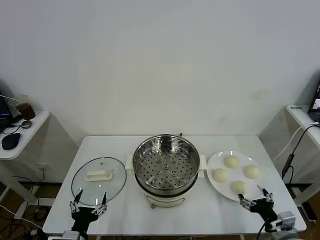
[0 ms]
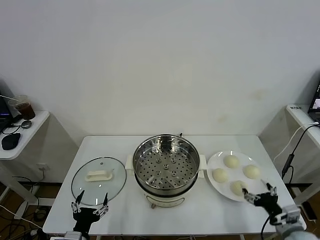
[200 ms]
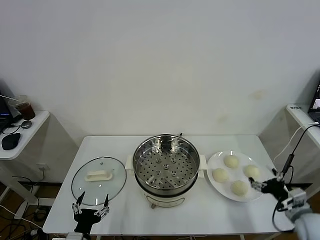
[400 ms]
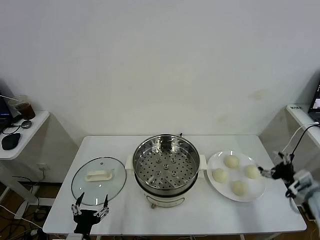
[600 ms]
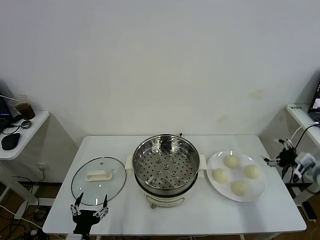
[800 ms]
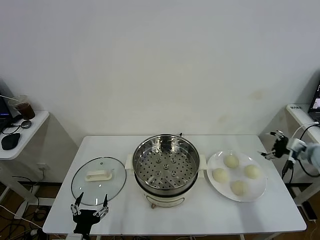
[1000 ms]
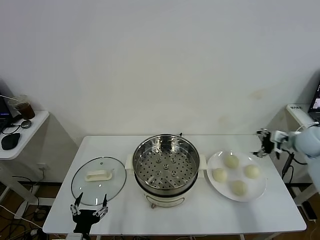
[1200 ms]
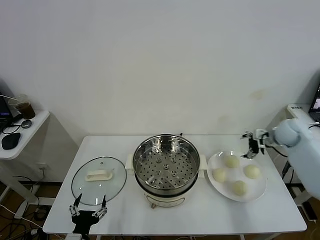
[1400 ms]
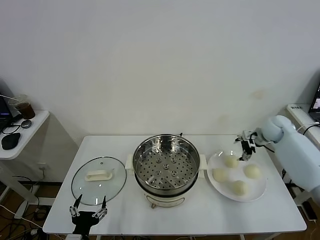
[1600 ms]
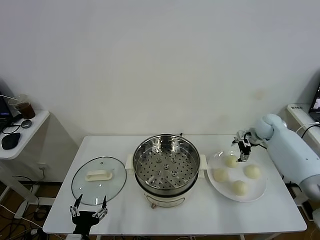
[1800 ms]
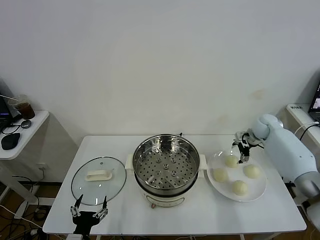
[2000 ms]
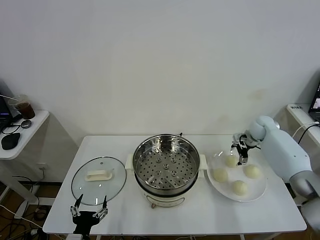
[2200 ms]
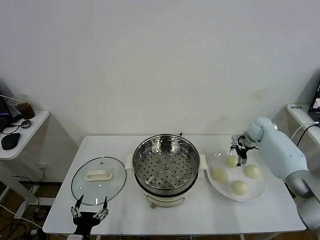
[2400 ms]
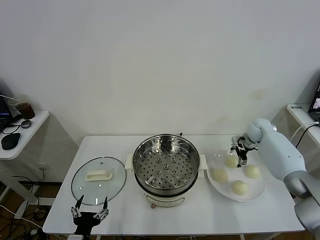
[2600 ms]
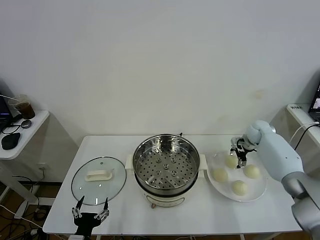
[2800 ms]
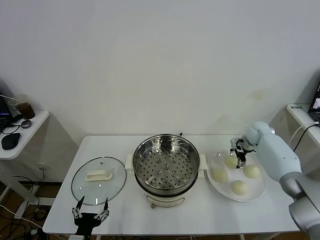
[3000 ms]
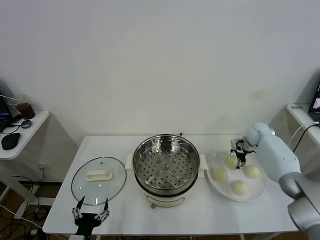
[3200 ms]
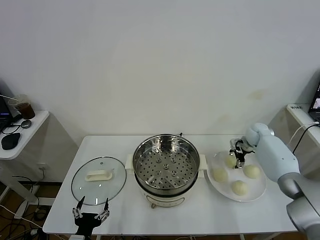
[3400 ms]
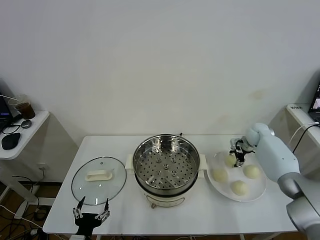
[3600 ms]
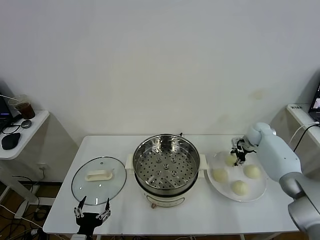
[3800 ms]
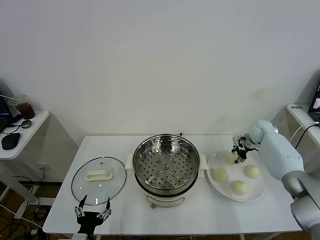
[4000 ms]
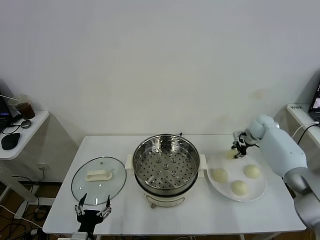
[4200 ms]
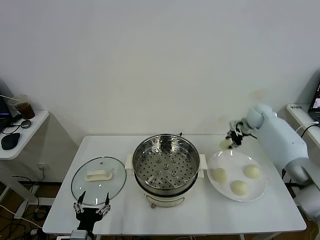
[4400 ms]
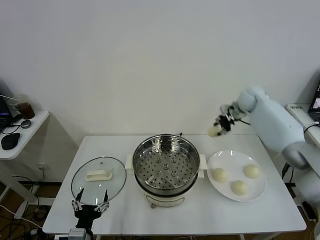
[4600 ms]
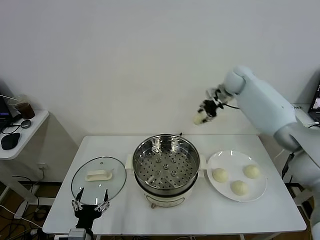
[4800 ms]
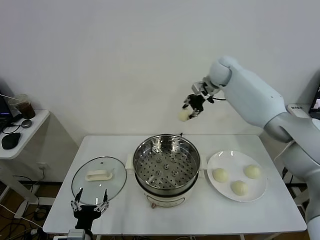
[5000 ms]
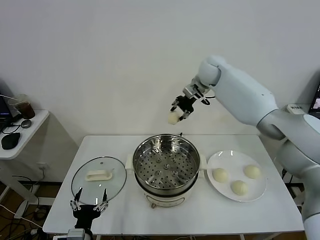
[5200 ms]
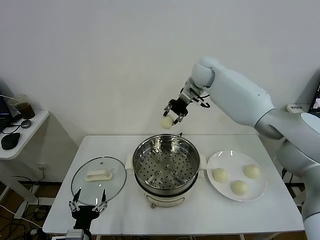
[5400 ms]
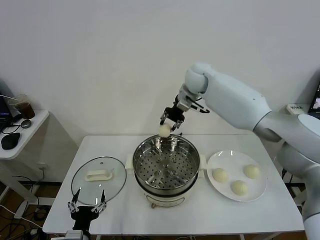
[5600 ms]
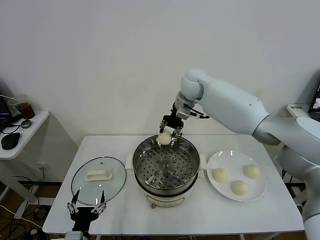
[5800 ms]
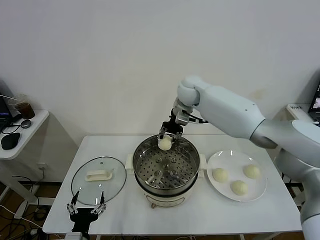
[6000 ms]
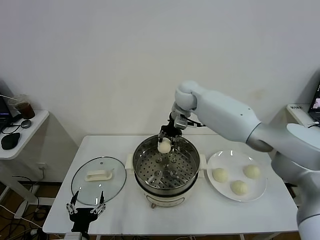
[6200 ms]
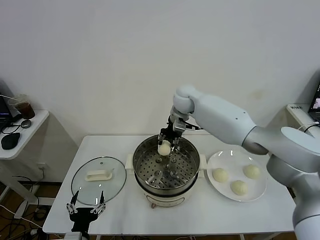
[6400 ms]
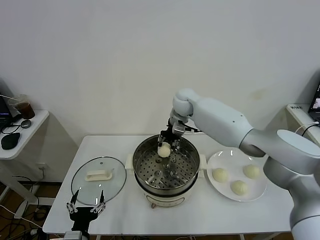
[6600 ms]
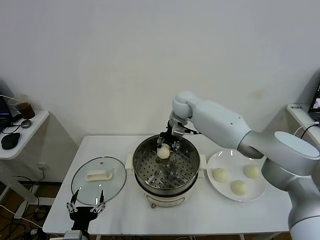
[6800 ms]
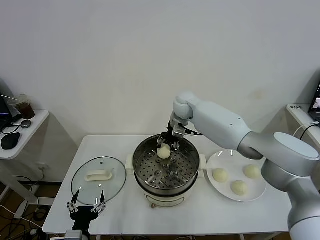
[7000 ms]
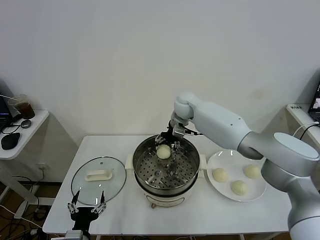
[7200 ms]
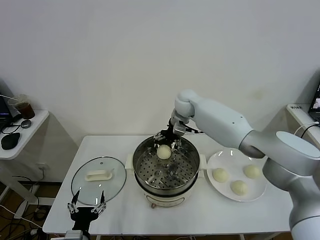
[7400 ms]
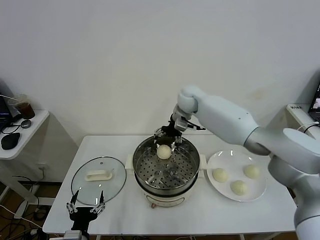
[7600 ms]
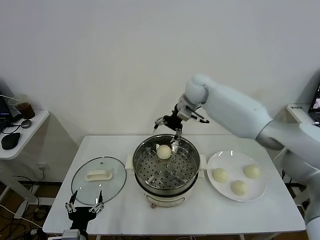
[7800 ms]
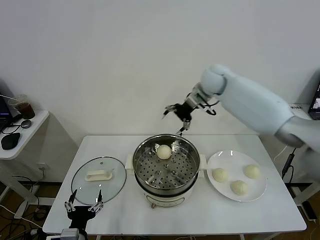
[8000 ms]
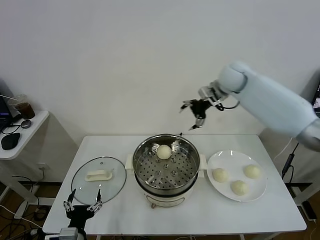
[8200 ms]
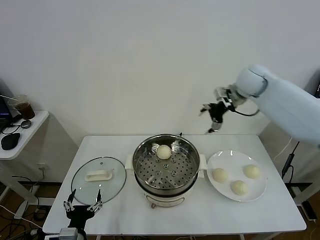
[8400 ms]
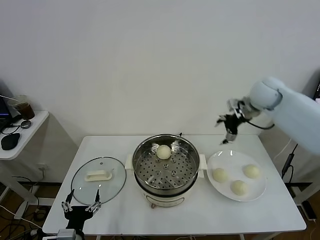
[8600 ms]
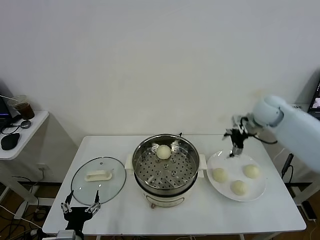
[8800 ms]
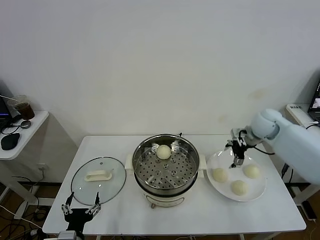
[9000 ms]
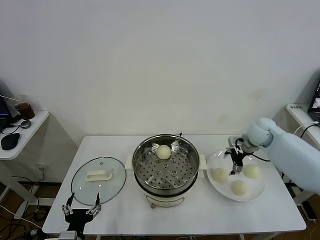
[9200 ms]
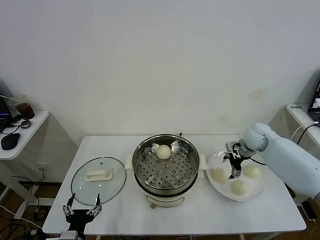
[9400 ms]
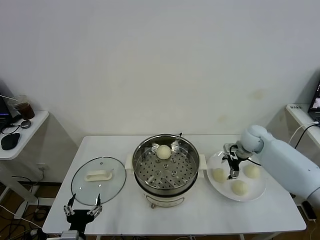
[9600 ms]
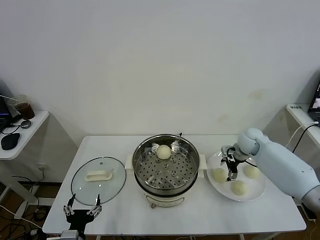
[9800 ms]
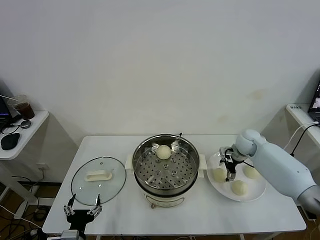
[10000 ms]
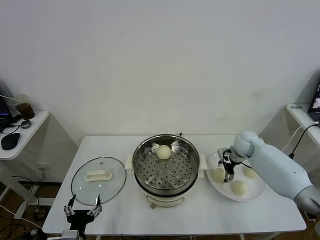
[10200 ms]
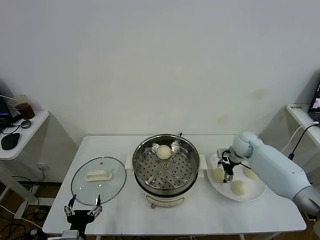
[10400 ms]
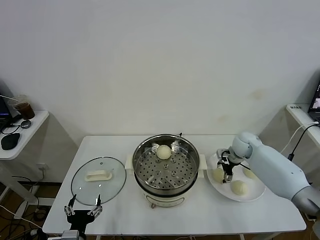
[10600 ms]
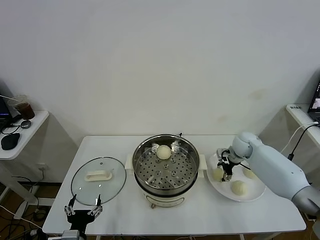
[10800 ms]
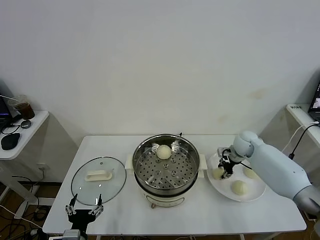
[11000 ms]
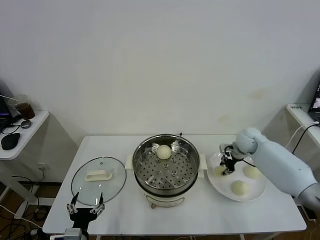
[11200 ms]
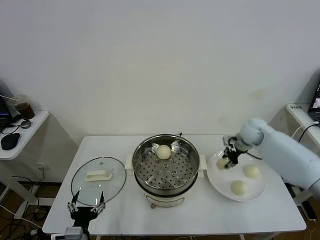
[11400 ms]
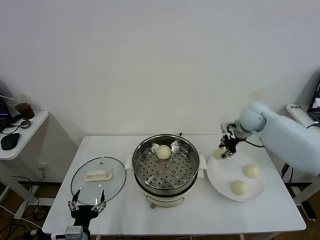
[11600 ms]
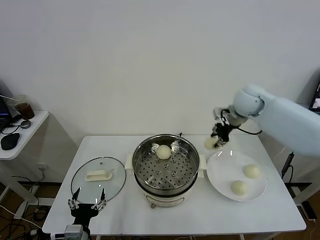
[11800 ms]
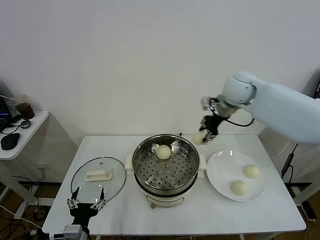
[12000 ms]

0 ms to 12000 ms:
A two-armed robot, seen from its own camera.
Task of the whole recording: take steamed baozi put them in steamer.
Step, 0 ms to 3600 ms: Grasp the baozi in the plate with right gripper.
Step, 4000 ms to 7200 ms: Place the baozi on the steamer with right gripper.
Step, 7400 ms to 11000 ms: Grasp the baozi in the plate with right gripper.
1600 ms to 3000 ms: The right gripper shifts some 5 cm downward.
3000 ms to 4400 ms: The right gripper moves upward and to the left, about 15 cm, and closes up.
4400 ms to 6000 ms: The right gripper moves to the left, approximately 25 cm.
6000 ms to 7600 ms: The right gripper opens.
7600 ms to 9000 ms: The right gripper moves to the right, roughly 25 cm.
9000 ms to 10400 ms: The right gripper moves downward, approximately 10 cm.
10400 ms to 12000 ms: The right gripper heads upward and to the left, covering roughly 30 cm, and closes.

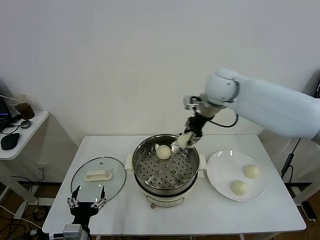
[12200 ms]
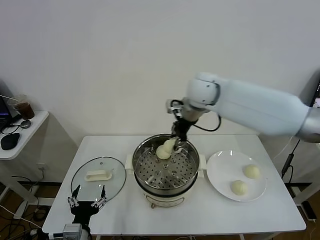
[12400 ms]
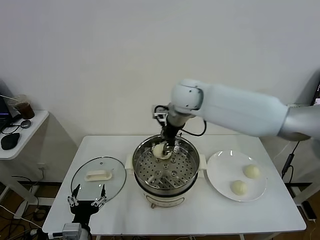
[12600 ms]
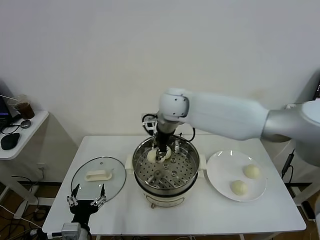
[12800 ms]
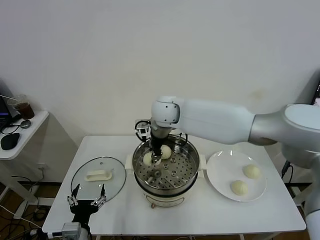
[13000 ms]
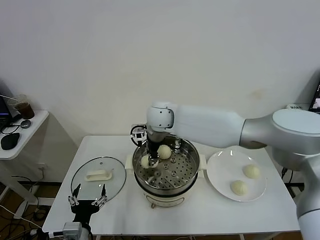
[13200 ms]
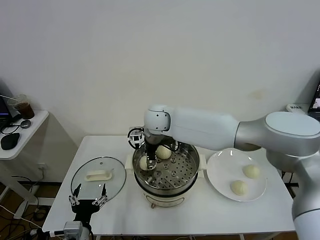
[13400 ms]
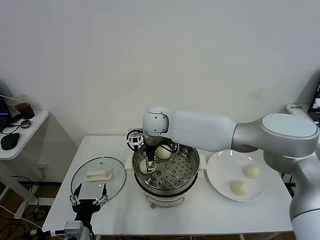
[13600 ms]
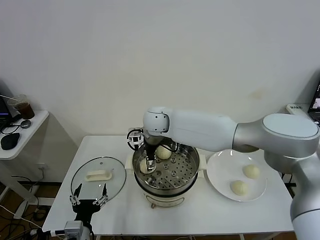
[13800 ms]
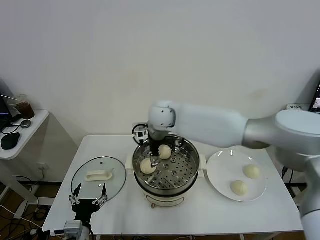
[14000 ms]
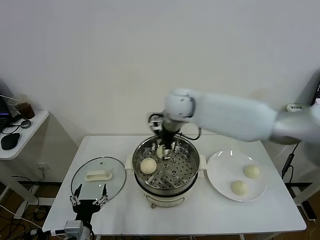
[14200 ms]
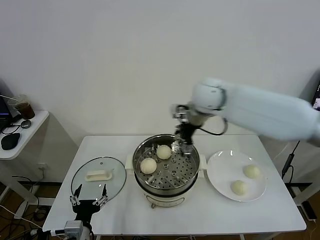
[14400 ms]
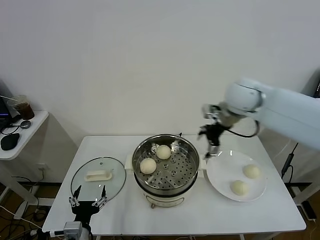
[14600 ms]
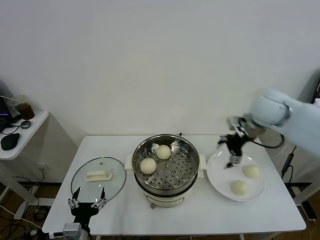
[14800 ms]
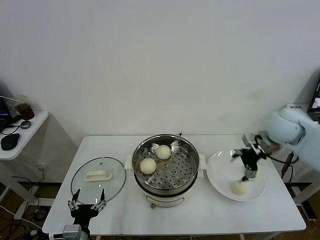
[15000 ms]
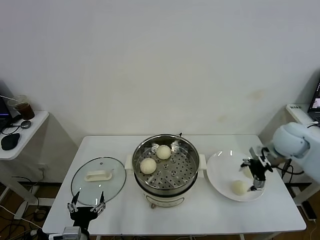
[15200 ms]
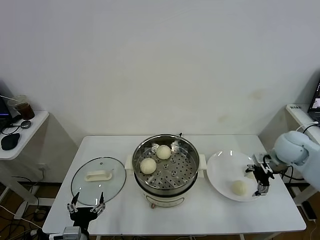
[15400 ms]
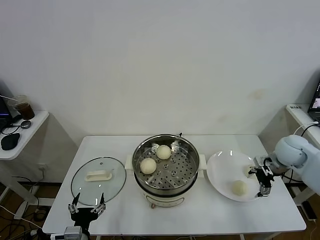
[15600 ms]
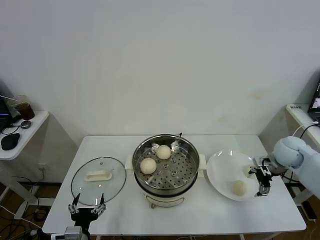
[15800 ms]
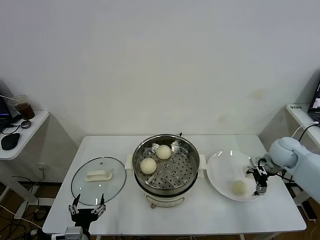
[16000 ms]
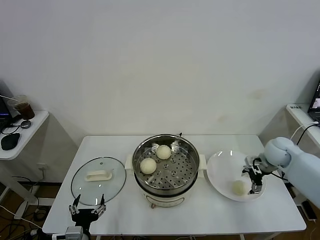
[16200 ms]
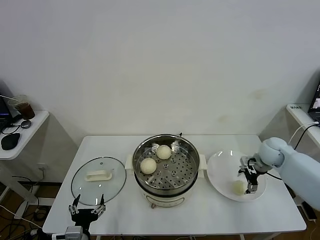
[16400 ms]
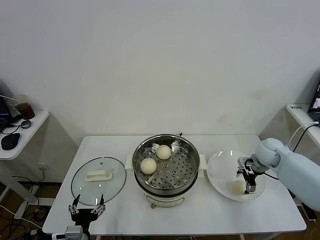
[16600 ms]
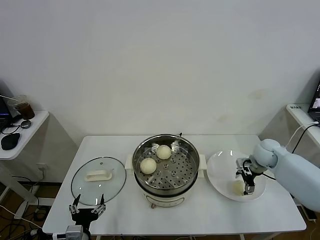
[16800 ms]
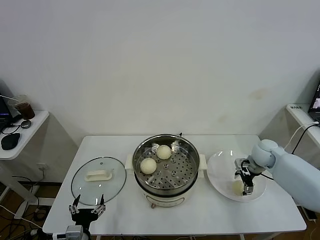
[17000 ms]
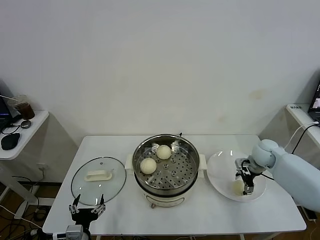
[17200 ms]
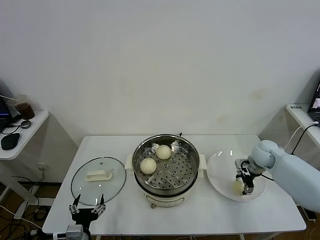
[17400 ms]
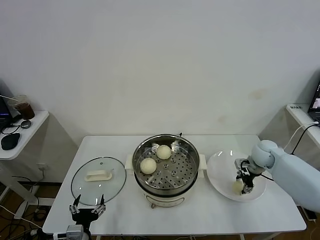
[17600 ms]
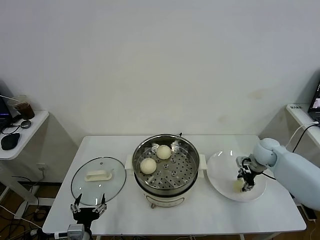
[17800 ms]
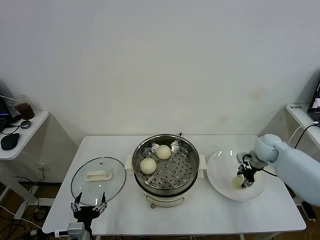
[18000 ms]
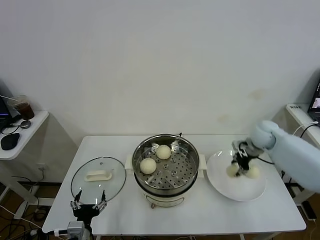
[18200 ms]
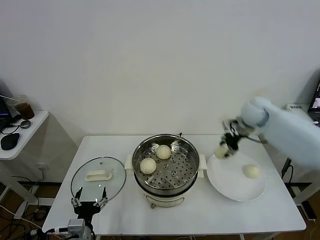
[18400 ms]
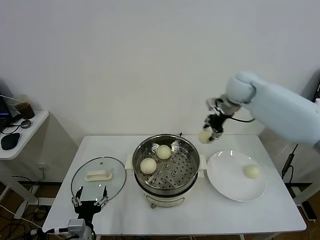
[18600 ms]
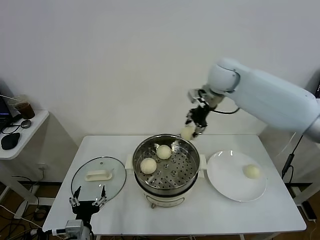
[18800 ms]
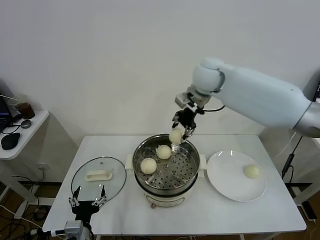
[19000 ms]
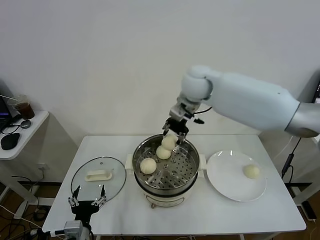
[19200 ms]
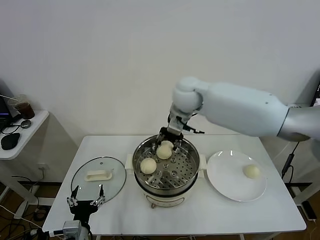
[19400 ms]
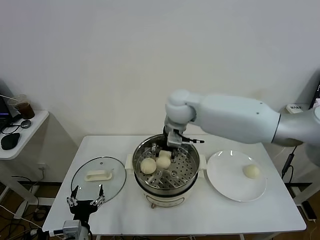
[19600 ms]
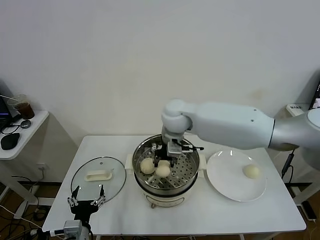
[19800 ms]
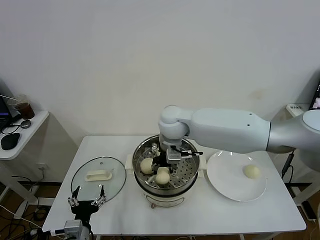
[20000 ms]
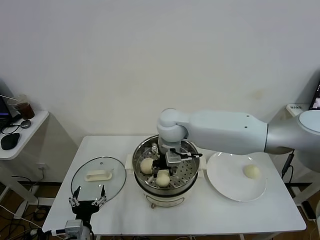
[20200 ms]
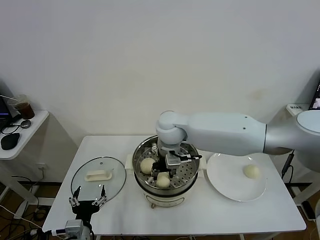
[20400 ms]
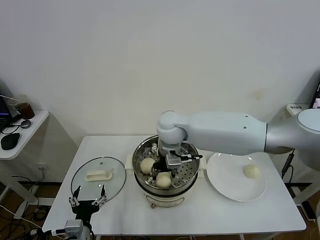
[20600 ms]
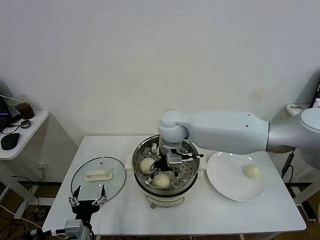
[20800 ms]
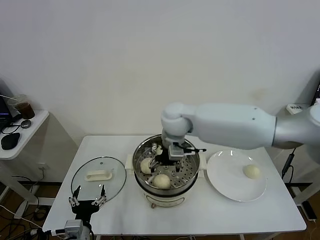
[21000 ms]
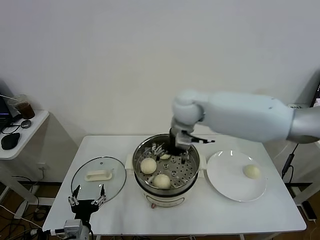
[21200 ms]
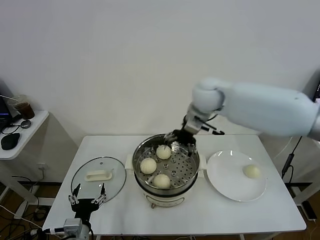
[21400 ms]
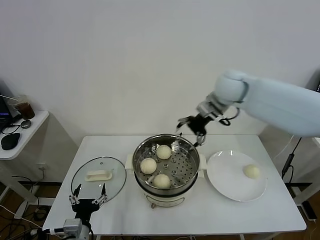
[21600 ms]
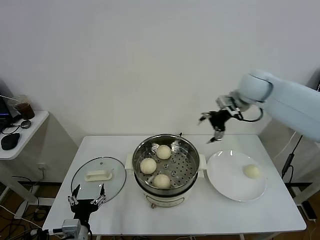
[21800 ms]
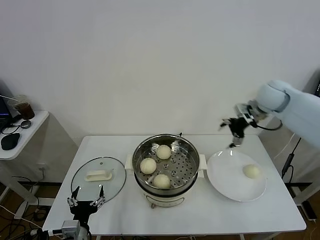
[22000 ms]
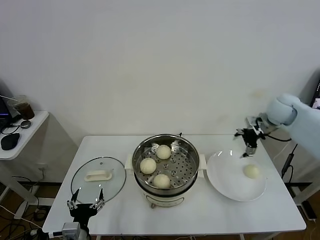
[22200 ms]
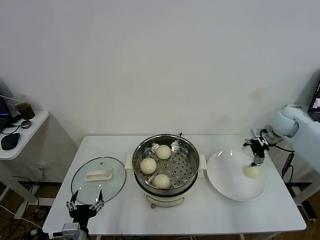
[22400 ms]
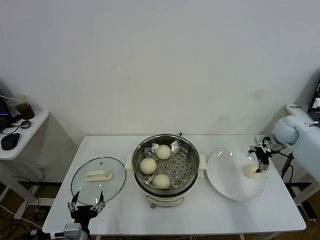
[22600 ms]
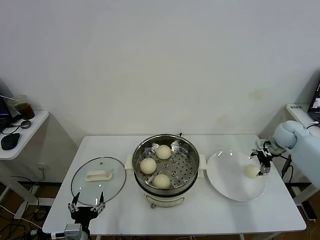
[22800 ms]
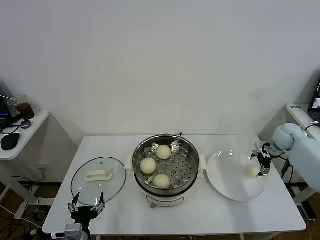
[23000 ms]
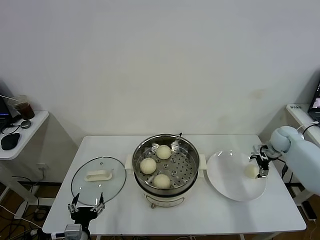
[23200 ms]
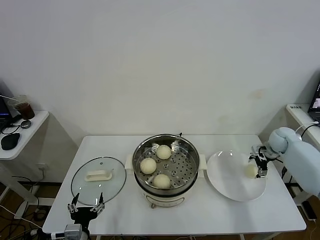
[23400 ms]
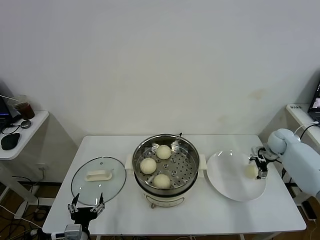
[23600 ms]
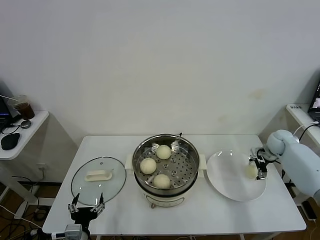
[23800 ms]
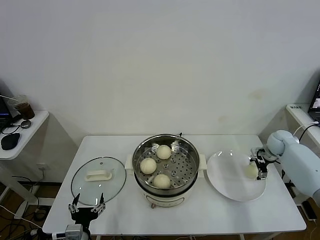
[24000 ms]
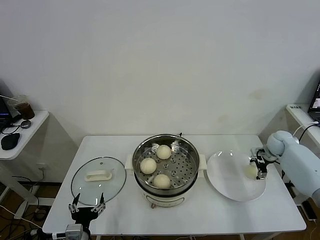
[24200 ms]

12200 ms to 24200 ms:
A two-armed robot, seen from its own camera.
Task of the whole recording: take steamed baozi put them in steamer.
Step, 12200 ms to 13600 ms: Place the baozi on the steamer with right gripper.
Step, 14000 ms to 17600 ms: Grasp the baozi in the plate with right gripper.
Step, 17800 ms to 21000 ms: Place the baozi on the steamer with right gripper.
12200 ms to 13800 ms: The right gripper heads to the left and downward, covering about 20 cm, and opens.
13800 ms to 15200 ms: The right gripper heads to the right, covering roughly 40 cm.
15200 ms to 16600 ms: The right gripper goes approximately 10 cm downward.
16600 ms to 18200 ms: The right gripper is displaced upward by some 10 cm, and closes.
18200 ms to 19800 ms: The right gripper heads to the left, covering some 30 cm.
19800 ms to 21200 ms: The right gripper heads to the right, covering approximately 5 cm, and opens.
21200 ms to 22600 ms: The right gripper is displaced to the right by approximately 35 cm.
22600 ms to 24200 ms: The right gripper goes approximately 10 cm downward.